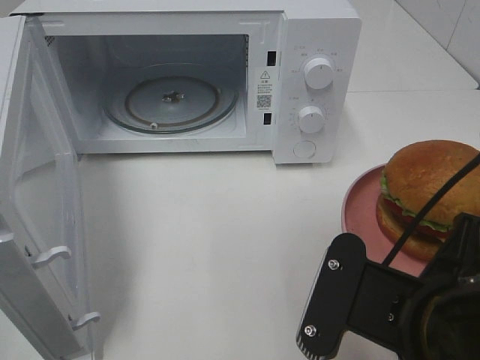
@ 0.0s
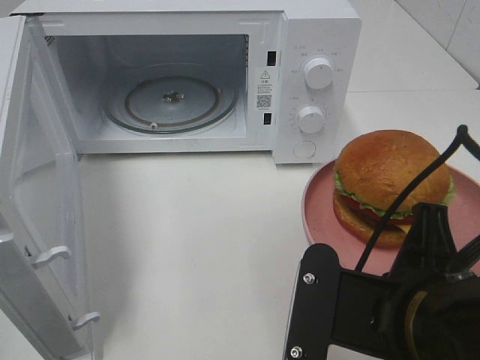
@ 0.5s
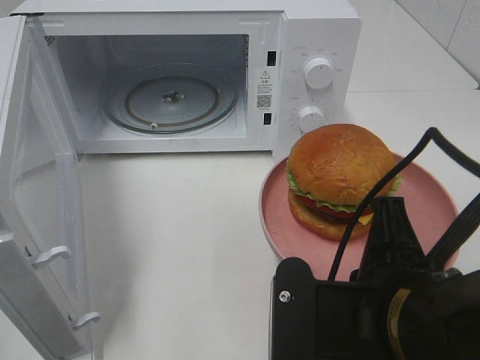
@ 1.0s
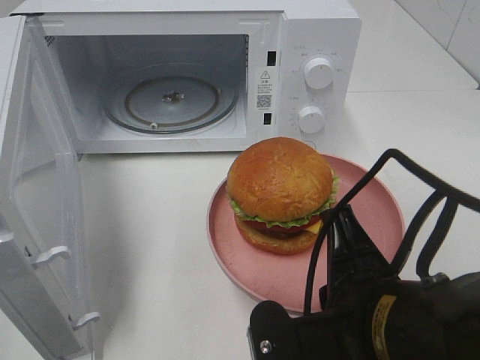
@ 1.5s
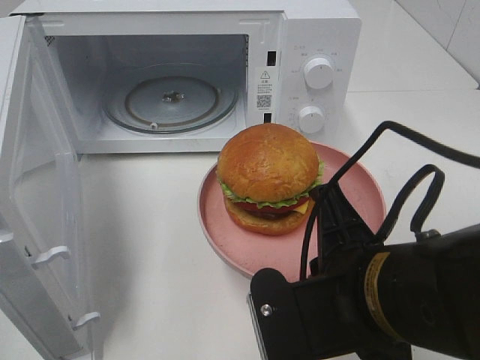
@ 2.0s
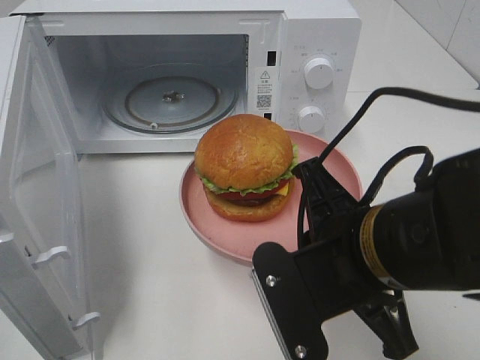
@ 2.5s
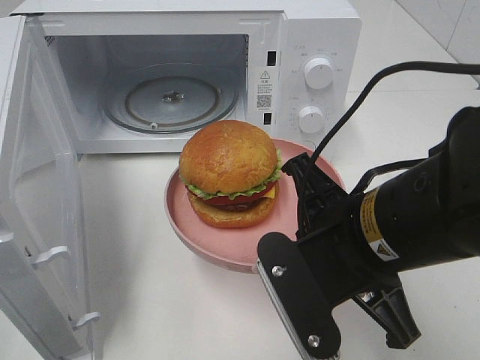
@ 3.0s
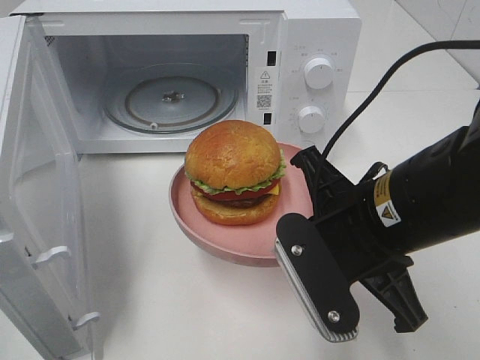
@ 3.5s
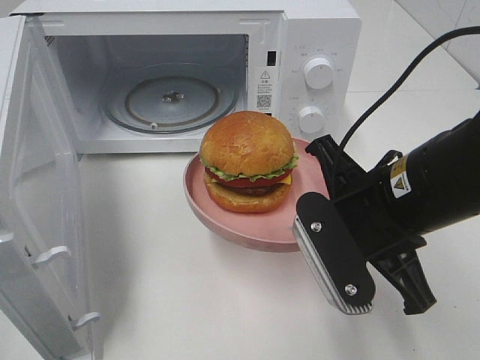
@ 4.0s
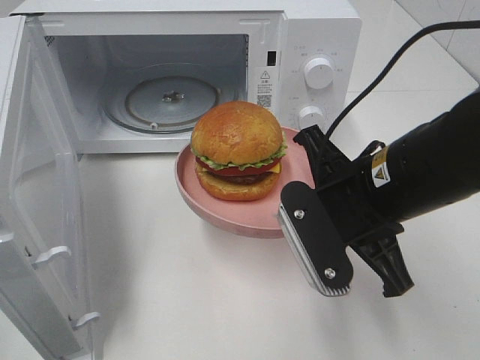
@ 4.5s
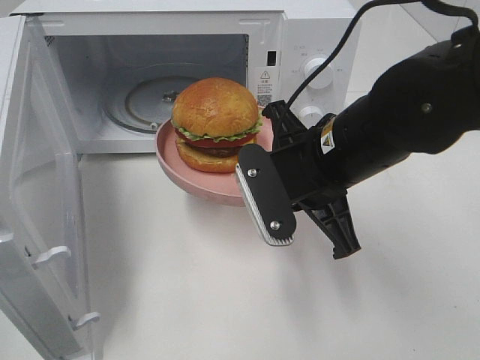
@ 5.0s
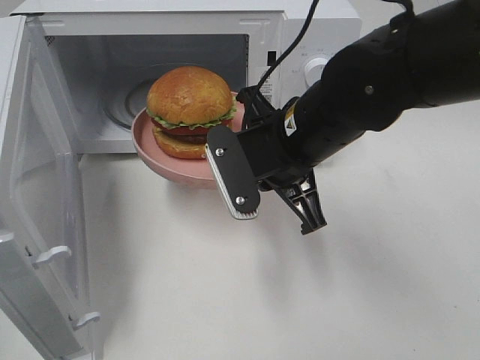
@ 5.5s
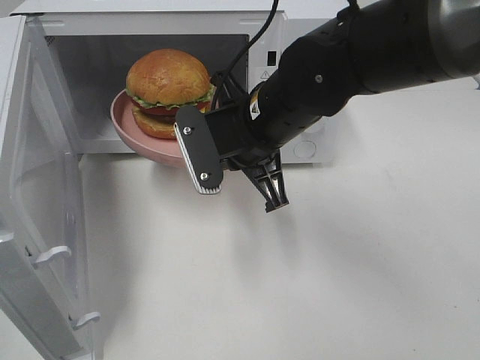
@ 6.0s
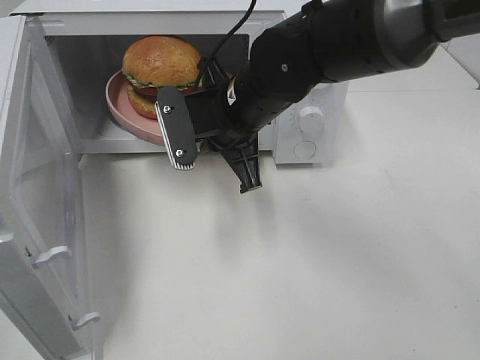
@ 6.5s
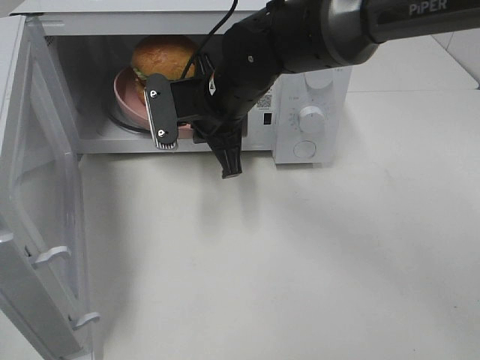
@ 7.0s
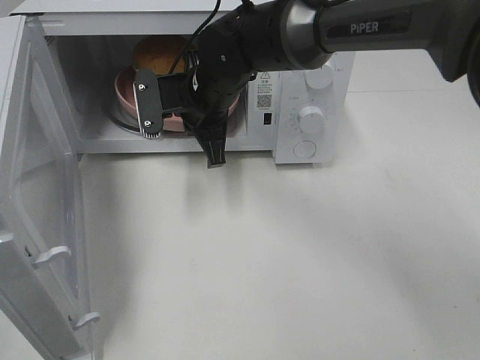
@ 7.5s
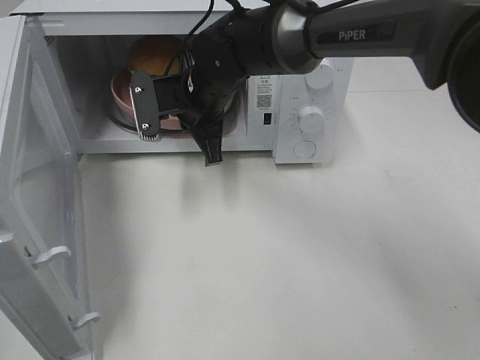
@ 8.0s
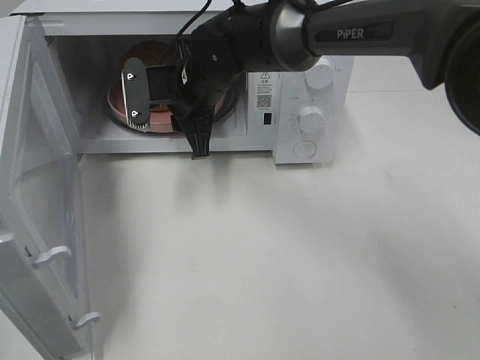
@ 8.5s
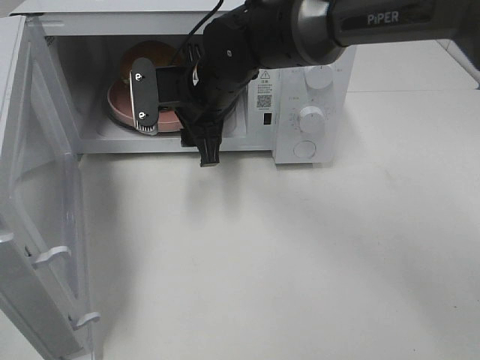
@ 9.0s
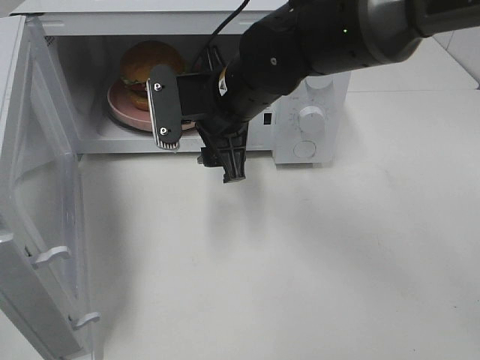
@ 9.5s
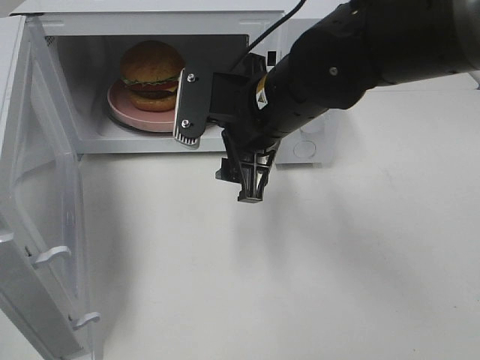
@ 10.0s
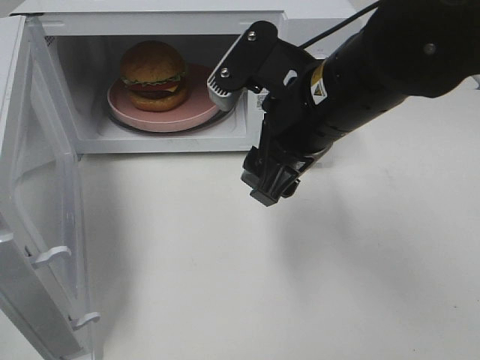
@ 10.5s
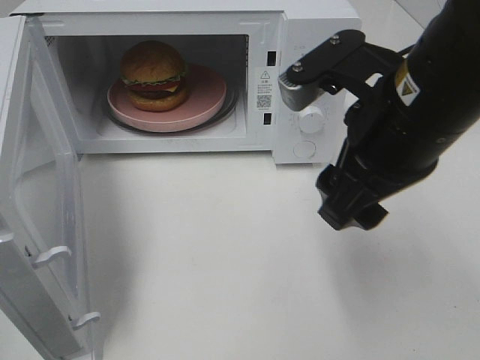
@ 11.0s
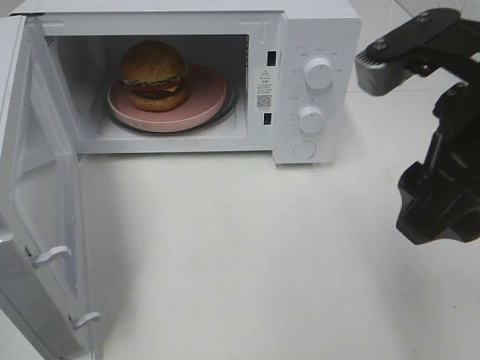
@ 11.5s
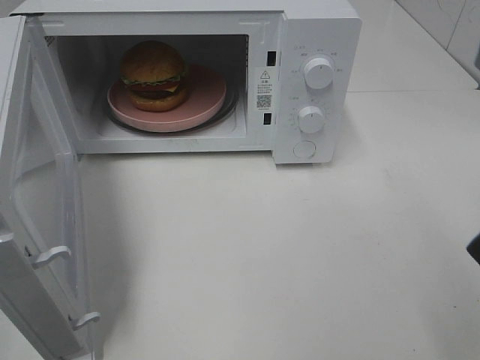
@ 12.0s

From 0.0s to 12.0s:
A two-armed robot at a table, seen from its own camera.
Task of the whole recording: Heat the burger.
Step, from 0.0s to 8.0s: Right hand: place the plate in the microwave.
From 2.0s to 4.0s: The right gripper moves forward, roughly 10 cm.
From 4.0s to 6.0s: The right gripper heads forward and to the left, covering about 15 cm.
From 6.0s to 8.0s: The right gripper moves forward and to the left, some 10 cm.
From 8.0s to 10.0s: The right gripper travels backward and to the right by about 15 cm, and opens.
From 10.0s to 12.0s: The right gripper moves backward, to the right and upward, roughly 25 cm.

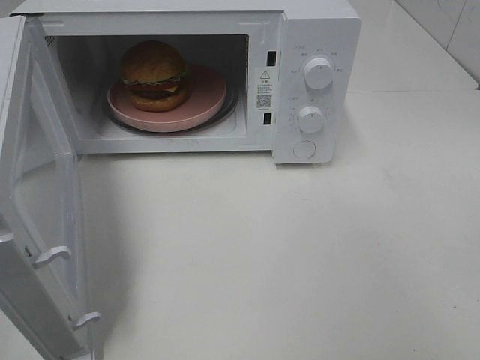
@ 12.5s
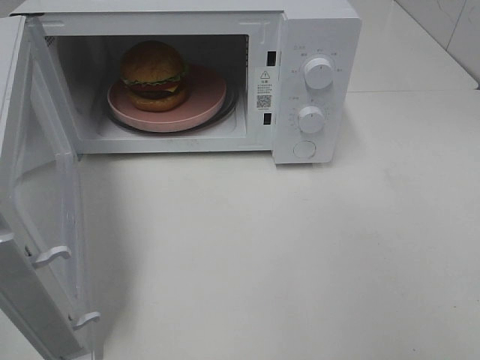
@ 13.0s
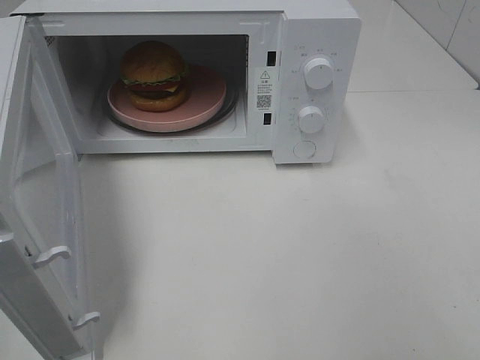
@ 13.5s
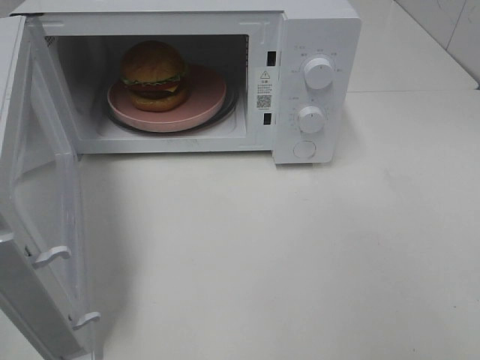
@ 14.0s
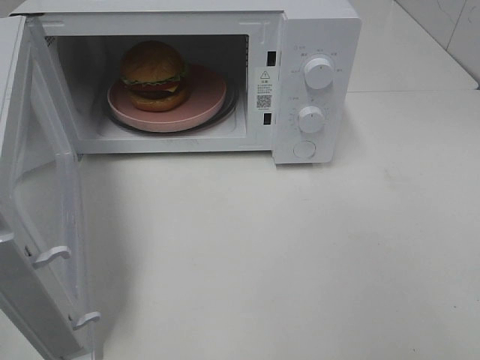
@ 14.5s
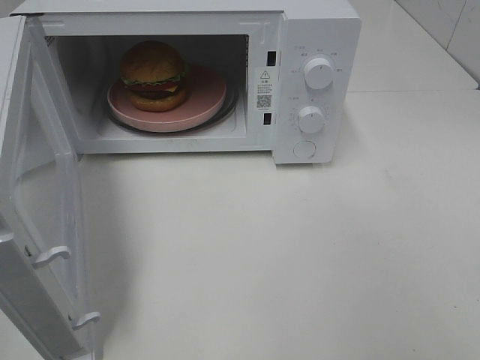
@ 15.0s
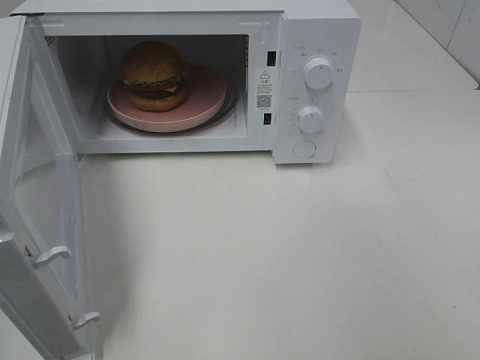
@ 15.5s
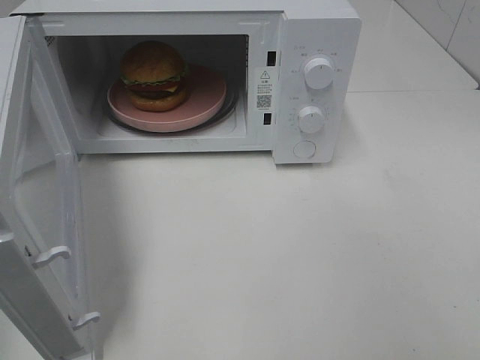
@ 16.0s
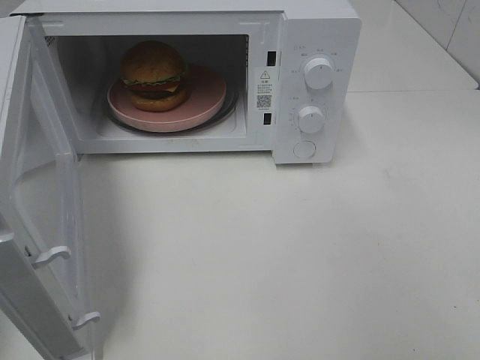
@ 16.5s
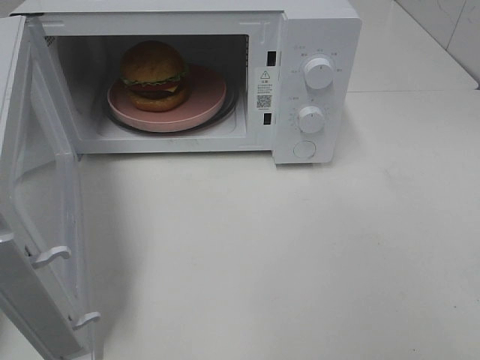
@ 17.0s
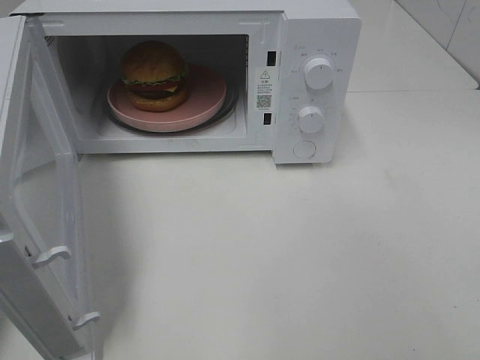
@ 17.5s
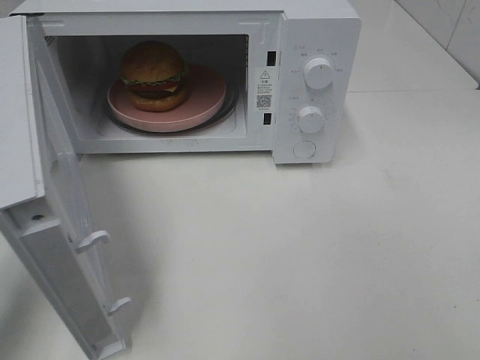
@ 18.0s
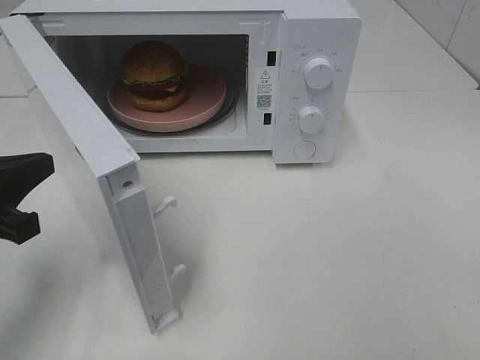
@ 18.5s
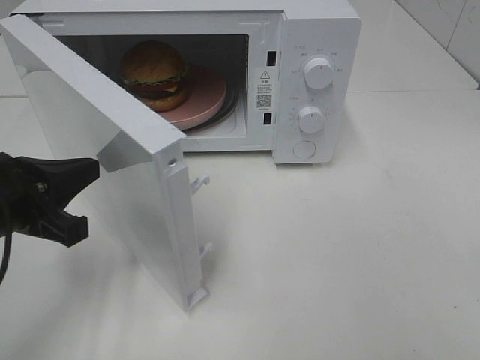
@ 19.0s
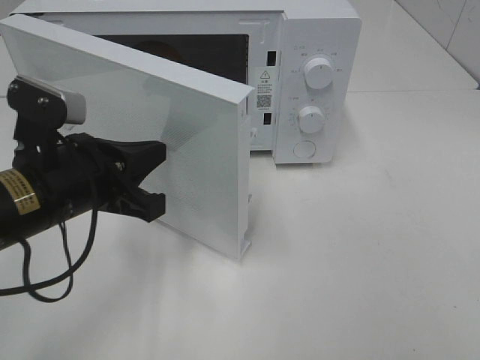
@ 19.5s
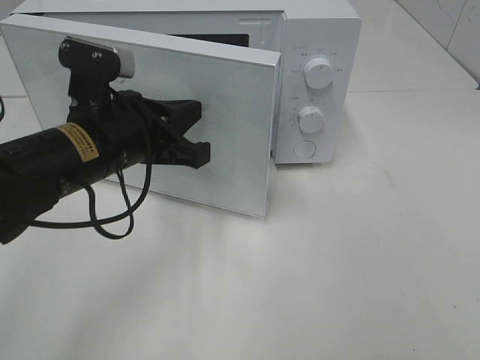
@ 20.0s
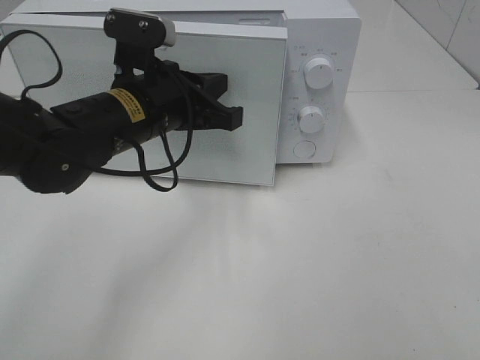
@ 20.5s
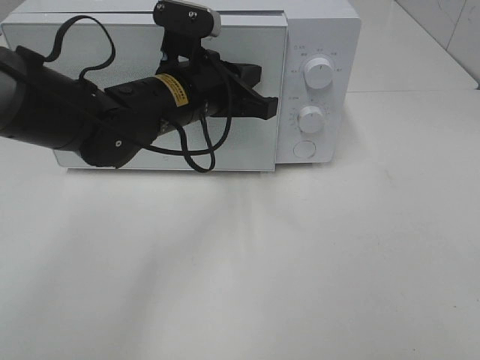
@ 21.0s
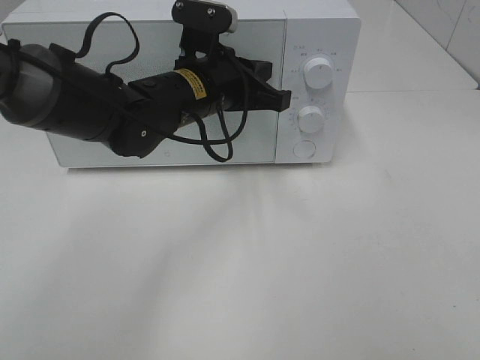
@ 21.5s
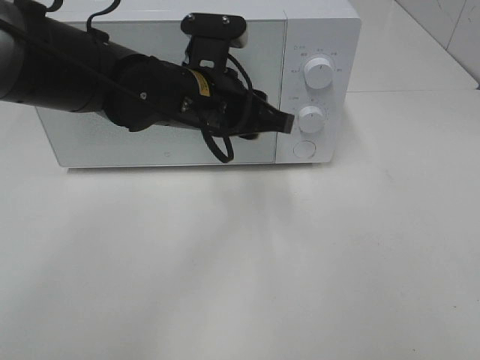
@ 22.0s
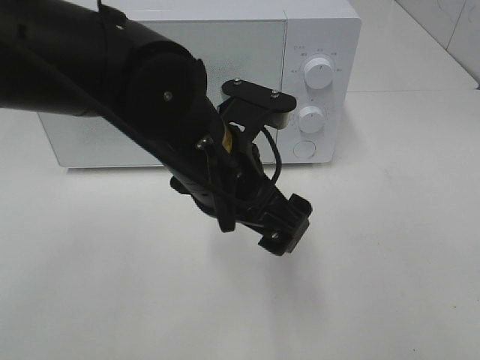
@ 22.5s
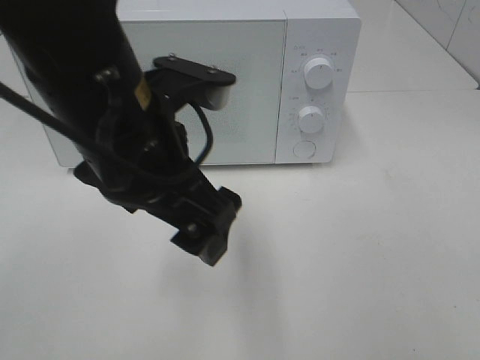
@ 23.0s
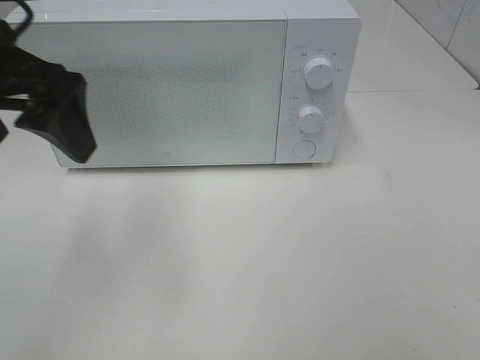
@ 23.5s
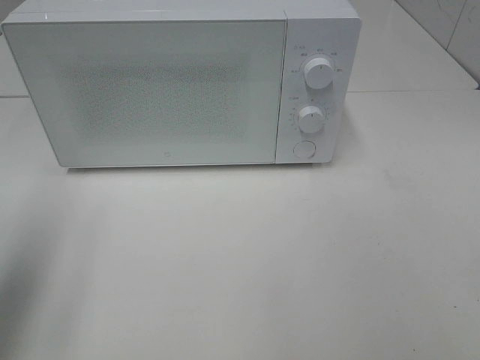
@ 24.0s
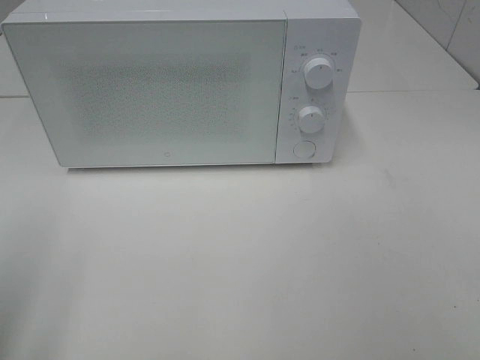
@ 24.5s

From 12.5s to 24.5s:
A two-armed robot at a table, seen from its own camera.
Task of the whole recording: Heat the burger.
Step, from 12.5s to 21.5s: Left hand: close the microwave door.
From 16.5s to 18.5s: The left gripper goes some 15 cm downward, forward and to the right.
From 18.5s to 20.5s: The left gripper goes about 20 cm to the right and forward.
From 20.5s to 22.5s: The left gripper heads backward and to the right, covering roughly 10 cm, and opens.
From 22.5s to 24.5s: The left gripper goes some 30 cm to the left and backward.

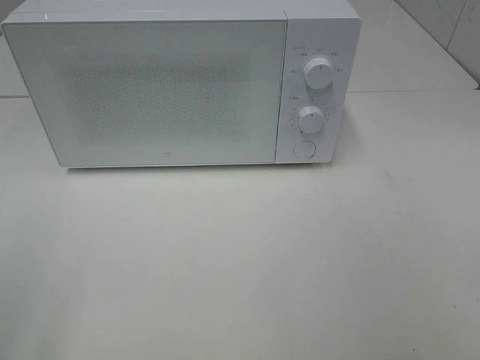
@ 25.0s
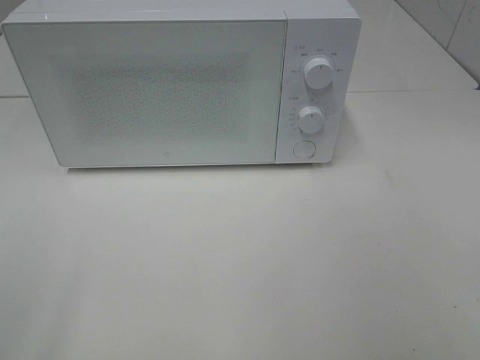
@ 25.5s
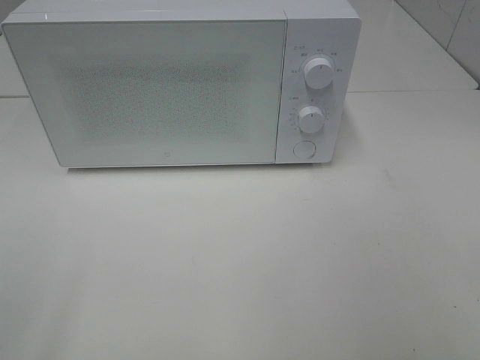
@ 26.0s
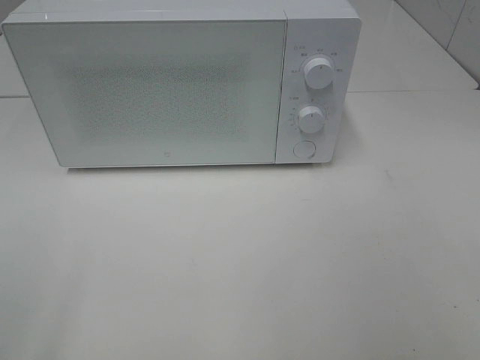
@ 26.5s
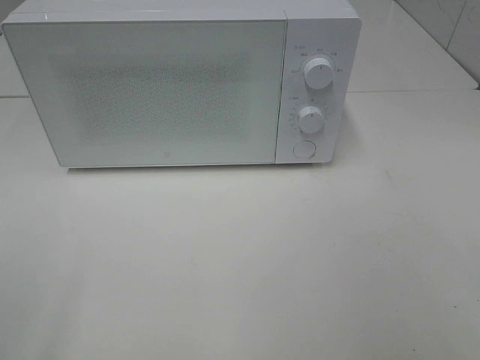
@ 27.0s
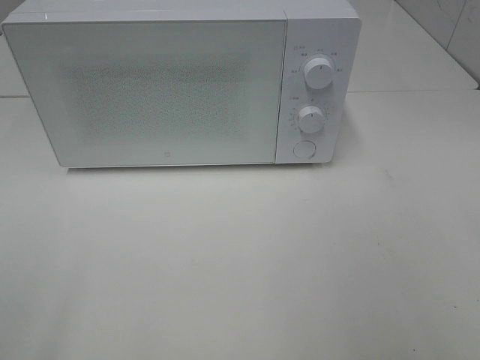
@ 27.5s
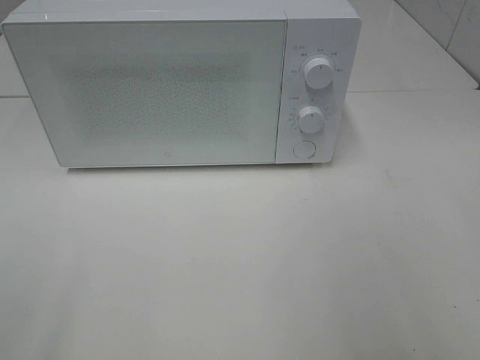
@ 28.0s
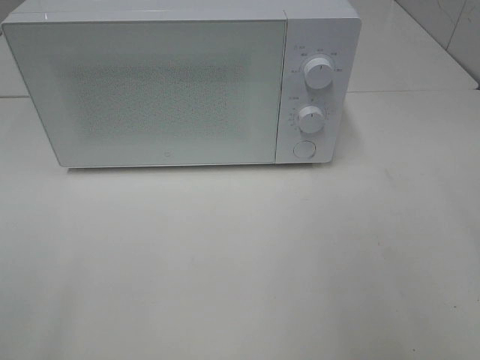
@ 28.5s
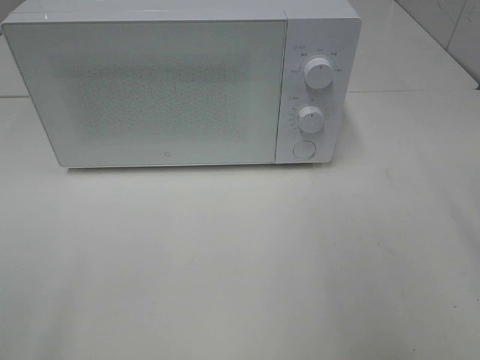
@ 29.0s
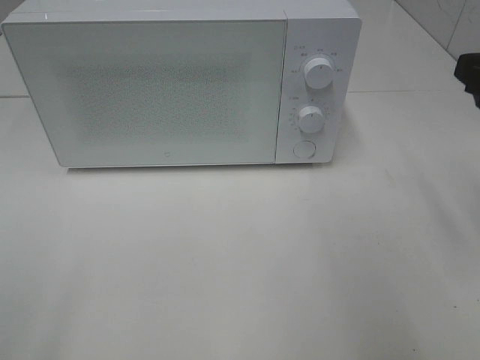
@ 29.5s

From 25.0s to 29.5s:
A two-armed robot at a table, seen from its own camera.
Task of the whole recording: Heat the burger.
From 27.0s to 29.5s: The right gripper shifts some 20 cm forward.
